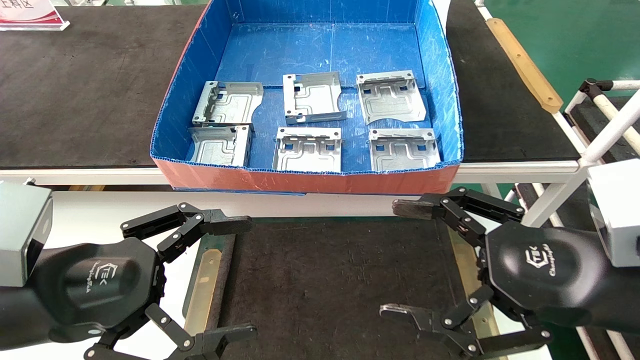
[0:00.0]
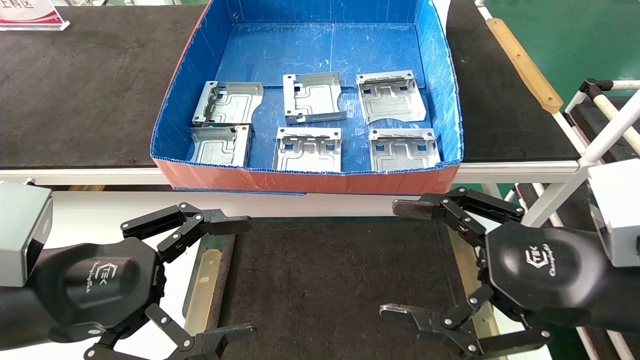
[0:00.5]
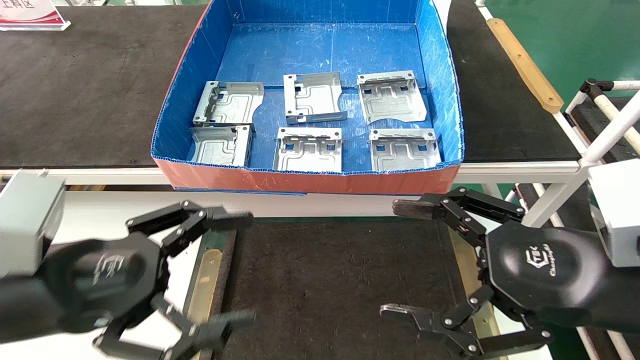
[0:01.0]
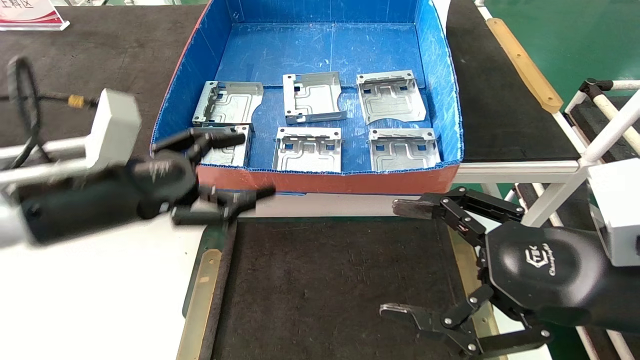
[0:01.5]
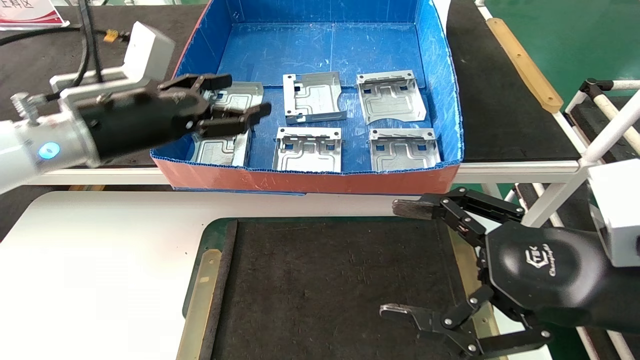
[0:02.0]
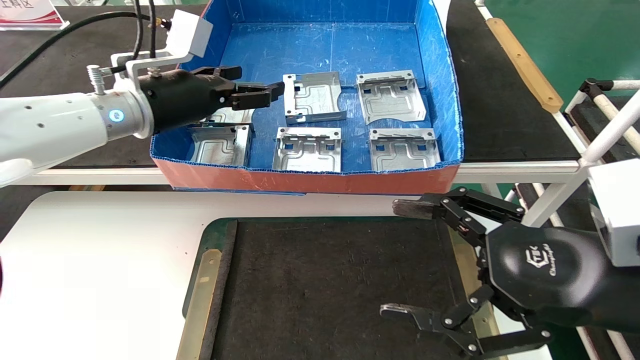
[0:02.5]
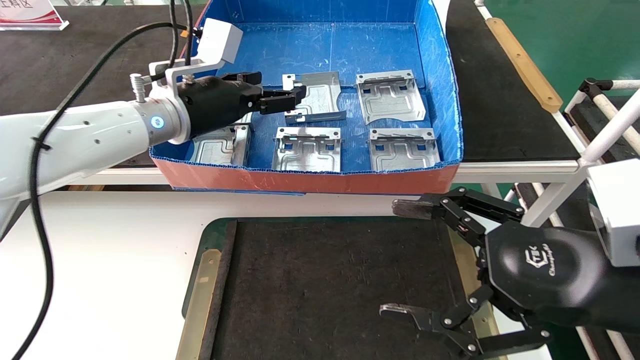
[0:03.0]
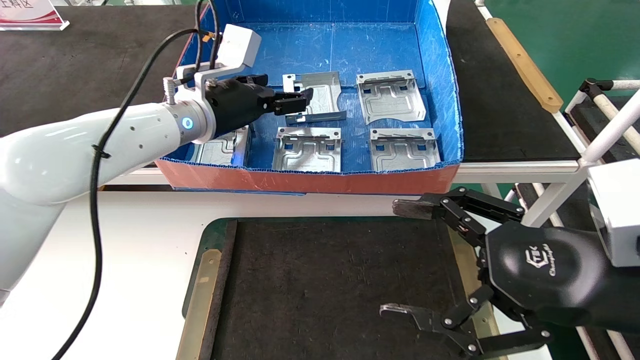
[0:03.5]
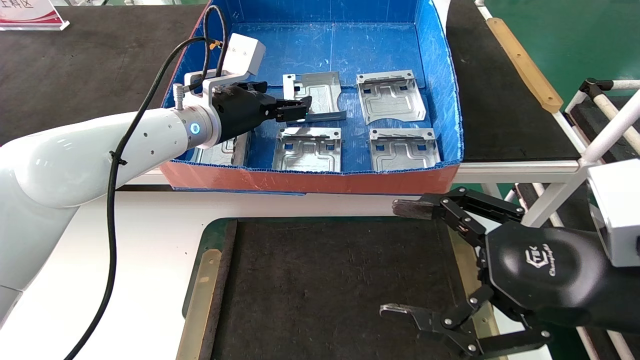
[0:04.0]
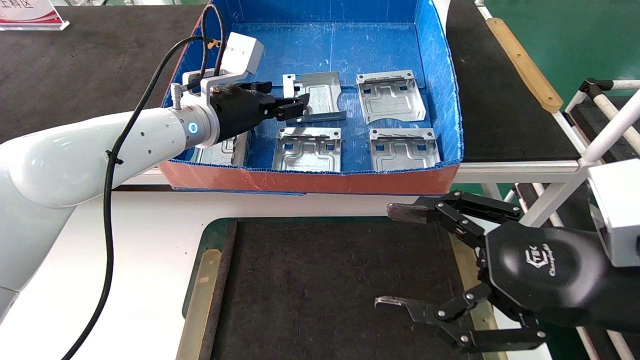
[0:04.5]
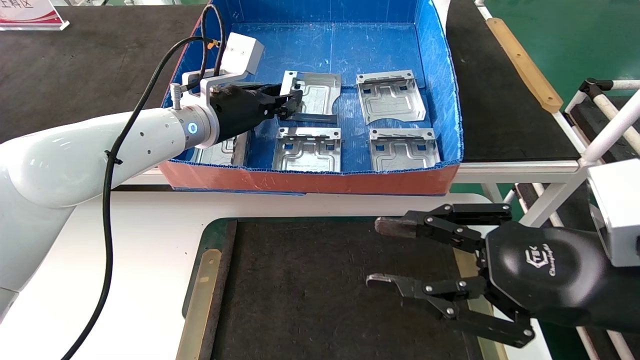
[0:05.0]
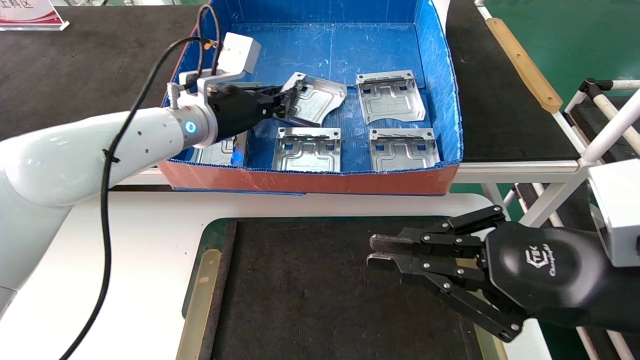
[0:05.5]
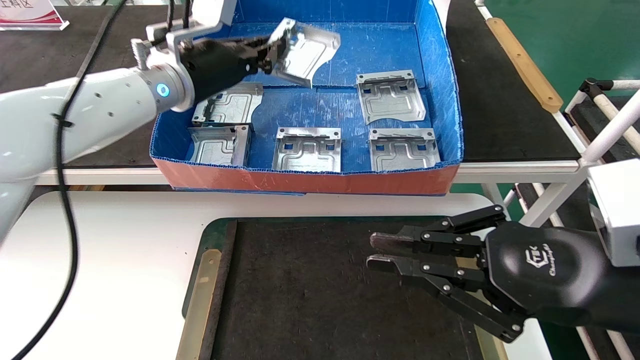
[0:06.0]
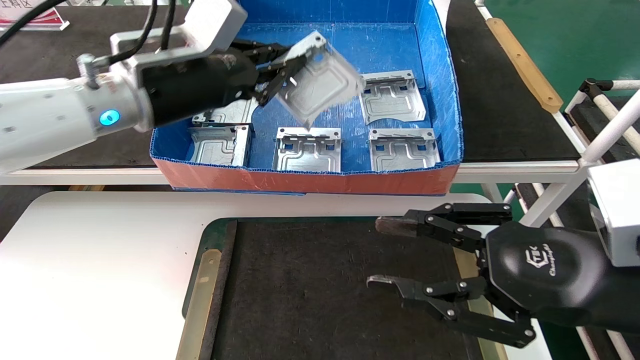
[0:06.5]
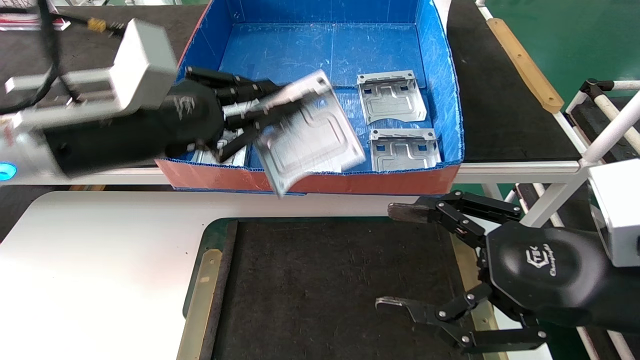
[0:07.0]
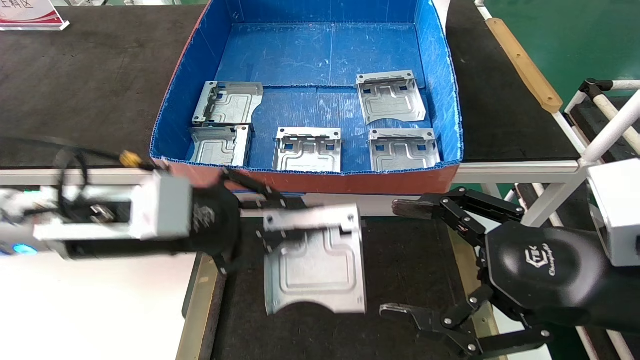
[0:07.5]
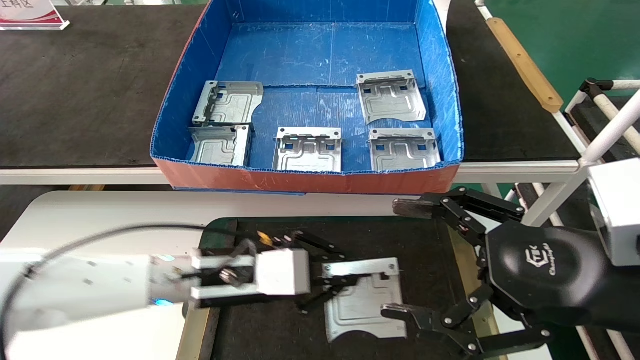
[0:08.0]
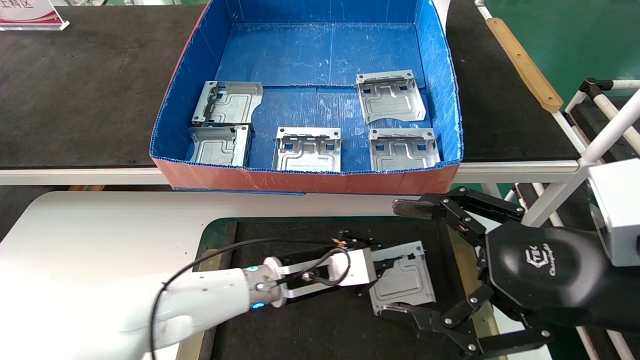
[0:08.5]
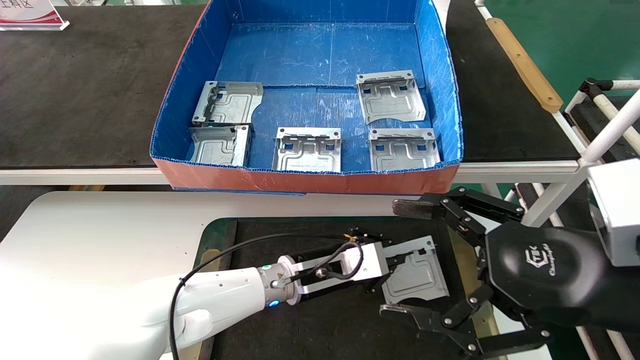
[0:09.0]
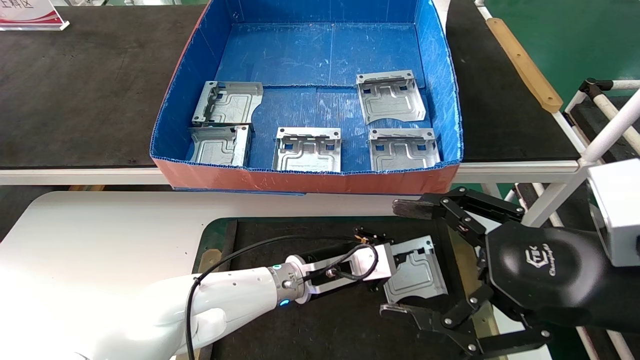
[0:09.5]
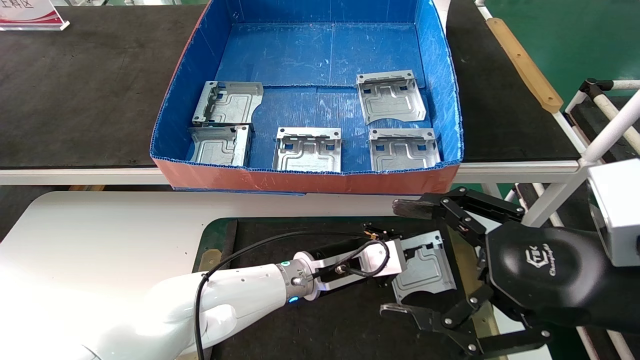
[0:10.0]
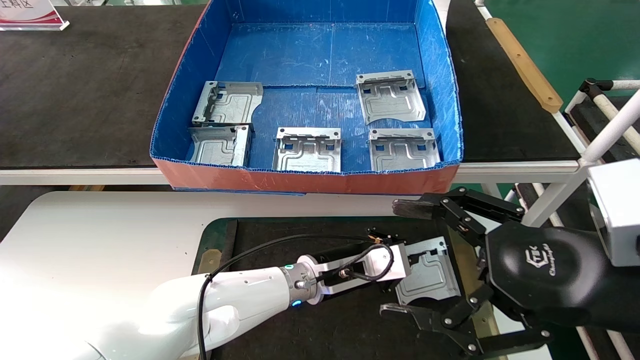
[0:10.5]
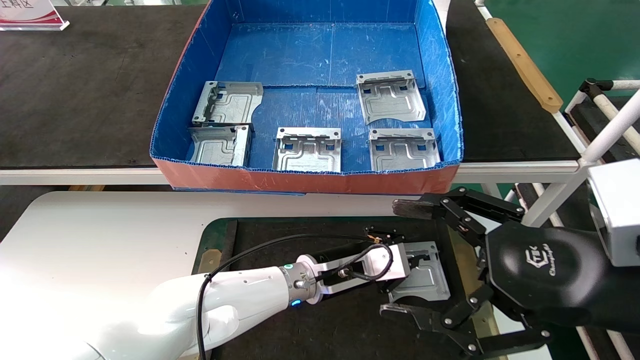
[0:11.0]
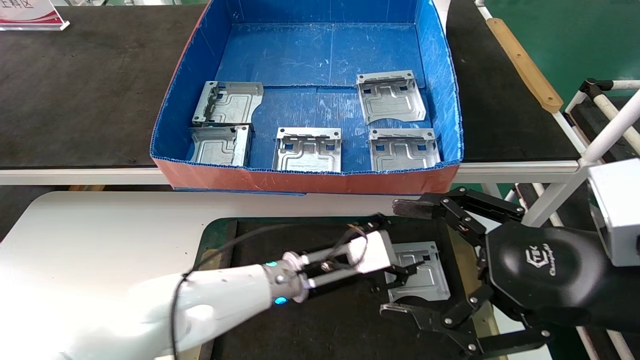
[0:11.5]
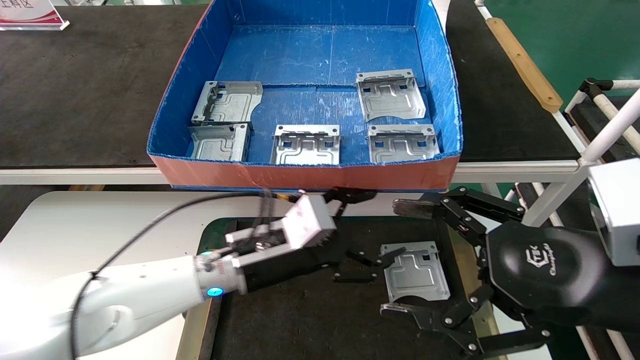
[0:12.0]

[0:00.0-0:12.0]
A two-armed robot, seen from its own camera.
Task of the whole recording: take the accessories out of the box and place them on the table.
Step, 0:01.5 to 0:05.0: Pick up the hard drive bracket from the feeding area.
Step, 0:05.5 to 0:11.0: Place the hard drive bracket into the box.
0:00.0 to 0:02.0: The left gripper goes approximately 20 cm forward and upward.
0:02.0 to 0:04.0: The left gripper goes about 15 cm to the right and forward.
0:04.0 to 0:06.0: The left gripper shifts by approximately 5 cm, and closes its fingers. The right gripper closes its fingers.
0:06.0 to 0:08.0: The right gripper opens up; the left gripper is displaced downward by some 25 cm.
0:08.0 to 0:10.0: The left gripper travels to the right, forward and downward by about 15 cm.
0:10.0 to 0:12.0: The left gripper travels to the left, upward and backward by approximately 10 cm, and opens its fingers.
